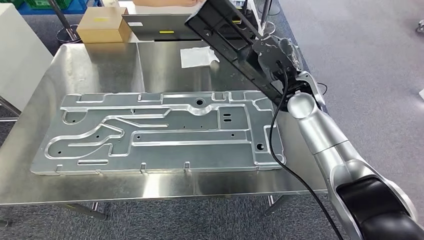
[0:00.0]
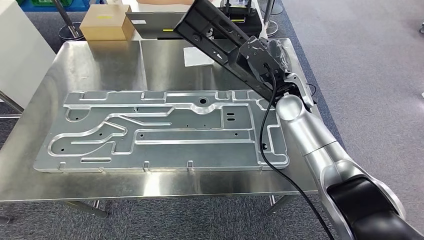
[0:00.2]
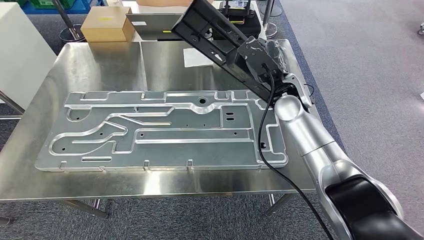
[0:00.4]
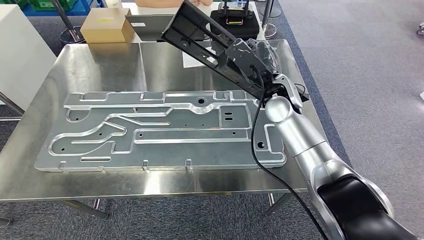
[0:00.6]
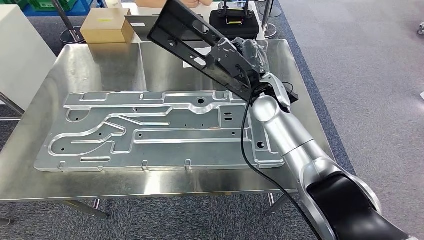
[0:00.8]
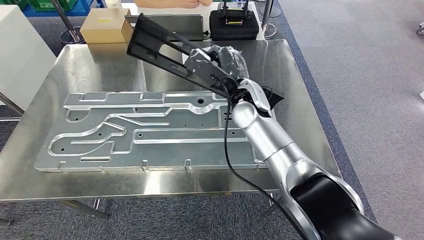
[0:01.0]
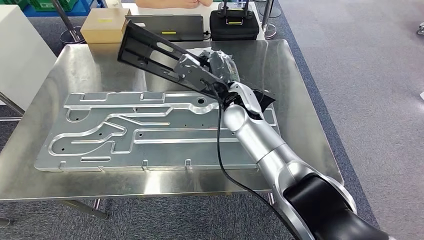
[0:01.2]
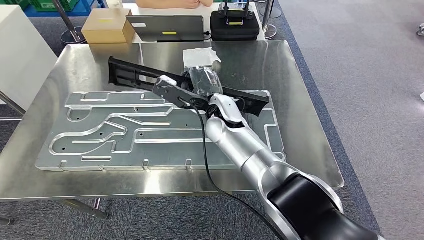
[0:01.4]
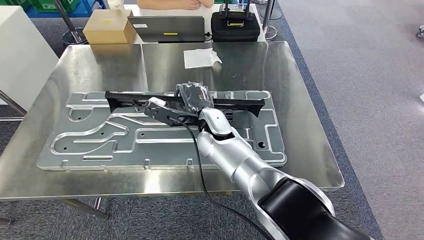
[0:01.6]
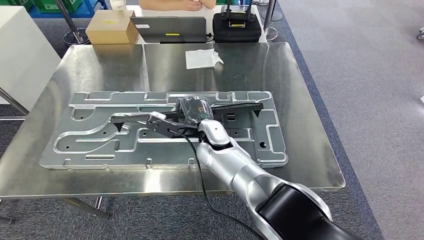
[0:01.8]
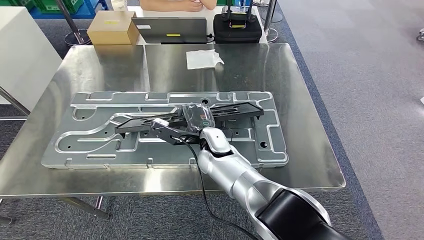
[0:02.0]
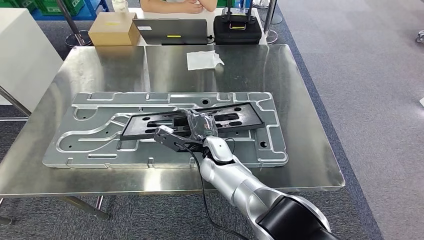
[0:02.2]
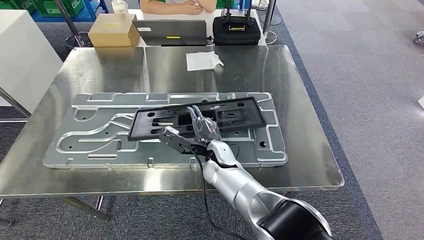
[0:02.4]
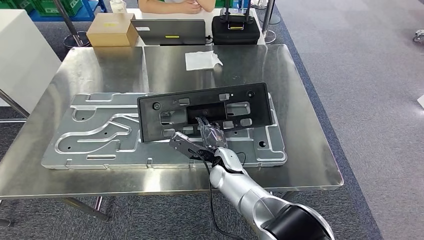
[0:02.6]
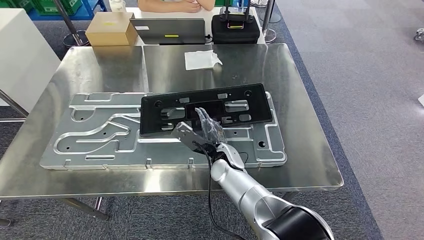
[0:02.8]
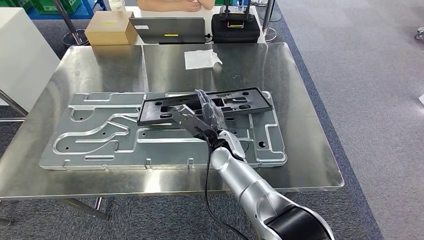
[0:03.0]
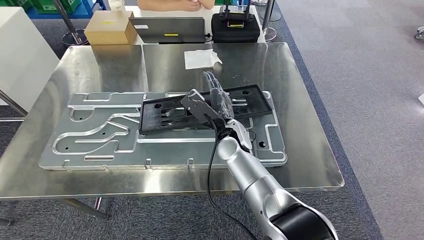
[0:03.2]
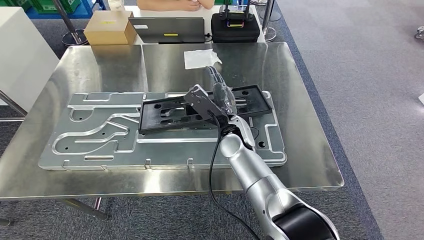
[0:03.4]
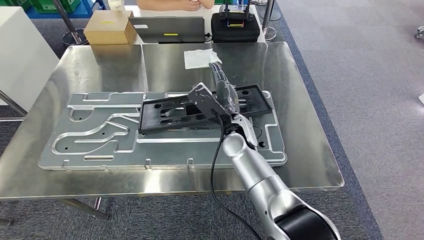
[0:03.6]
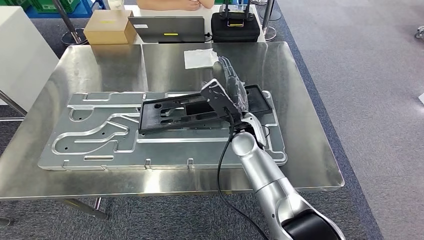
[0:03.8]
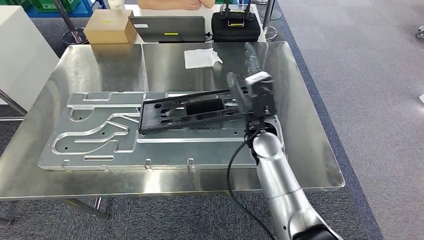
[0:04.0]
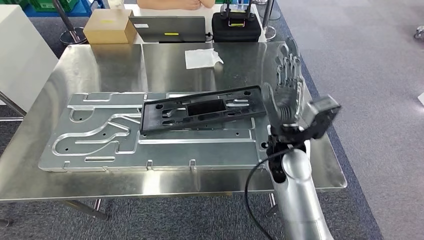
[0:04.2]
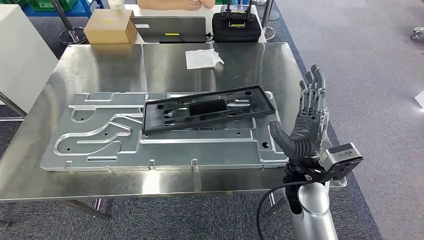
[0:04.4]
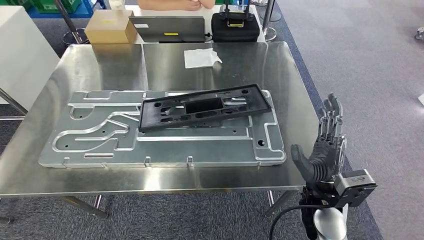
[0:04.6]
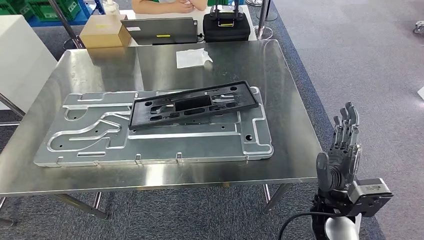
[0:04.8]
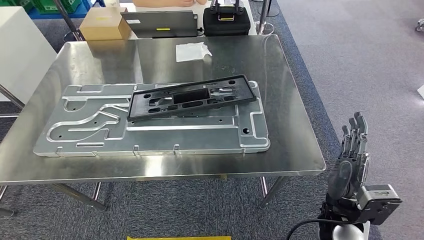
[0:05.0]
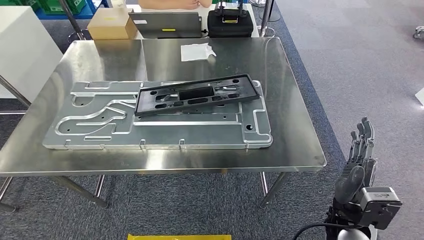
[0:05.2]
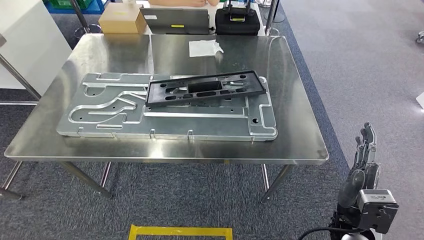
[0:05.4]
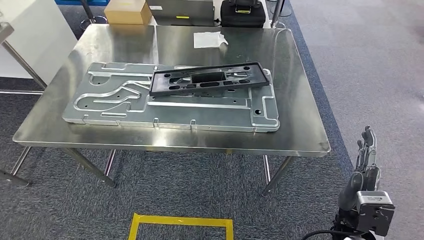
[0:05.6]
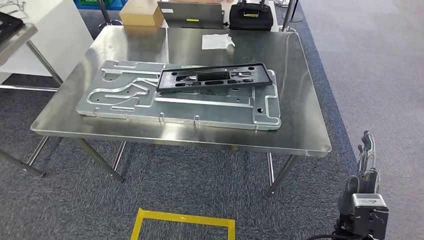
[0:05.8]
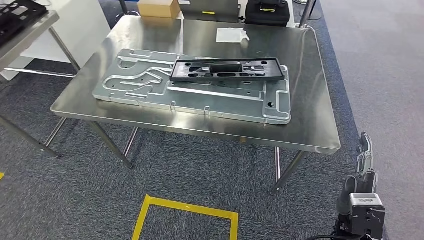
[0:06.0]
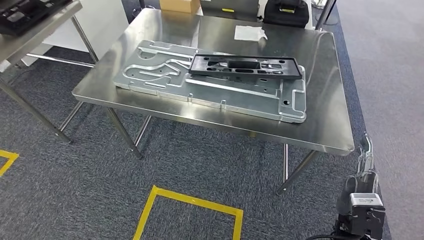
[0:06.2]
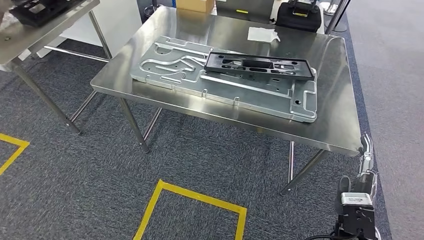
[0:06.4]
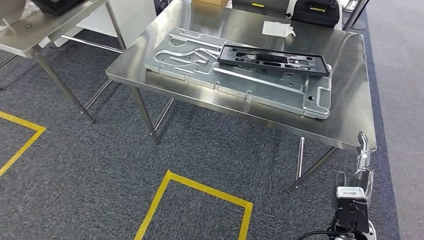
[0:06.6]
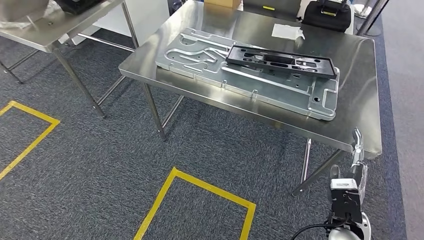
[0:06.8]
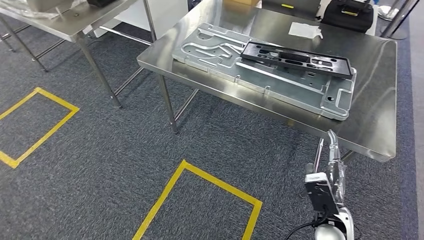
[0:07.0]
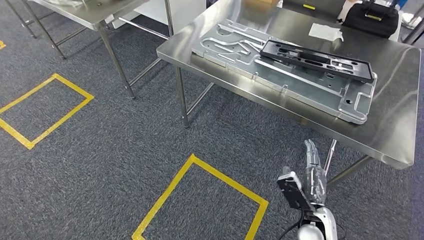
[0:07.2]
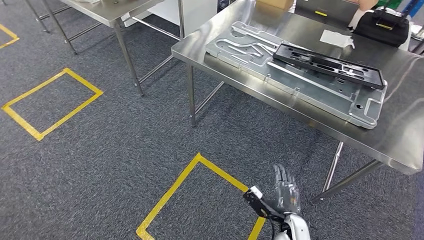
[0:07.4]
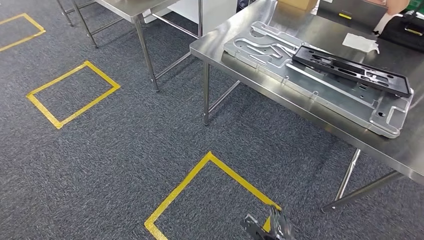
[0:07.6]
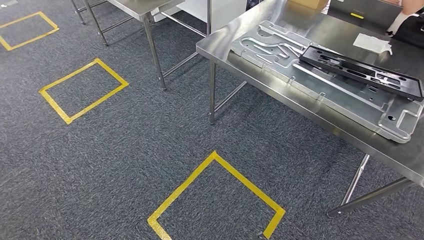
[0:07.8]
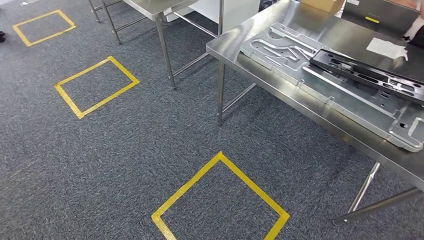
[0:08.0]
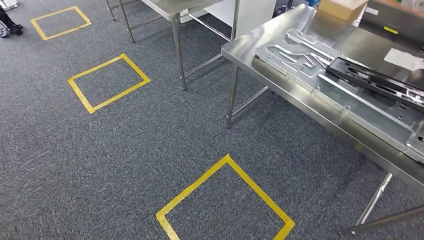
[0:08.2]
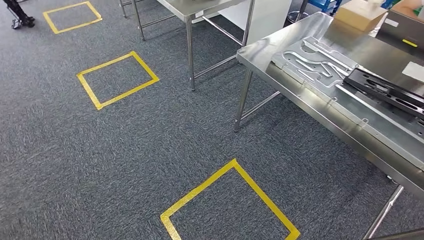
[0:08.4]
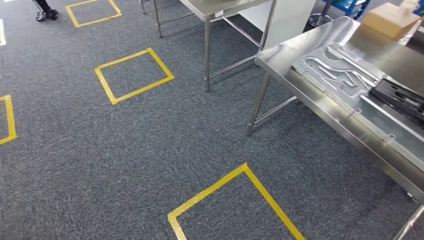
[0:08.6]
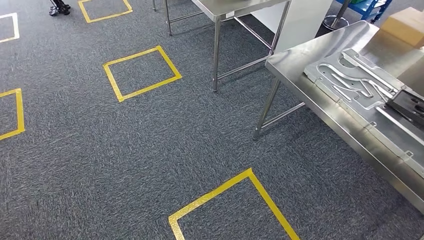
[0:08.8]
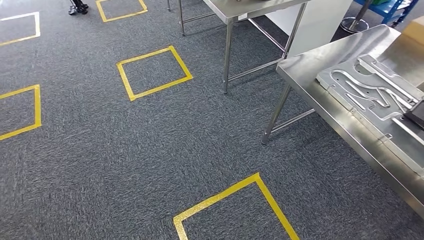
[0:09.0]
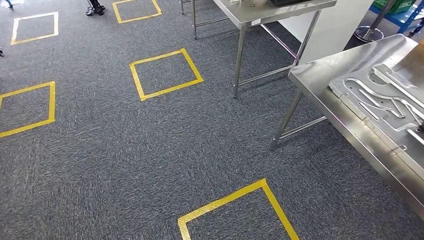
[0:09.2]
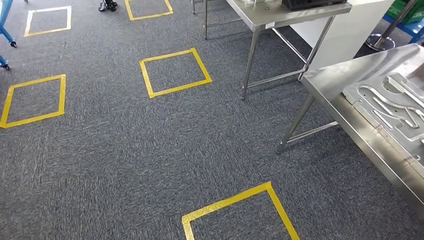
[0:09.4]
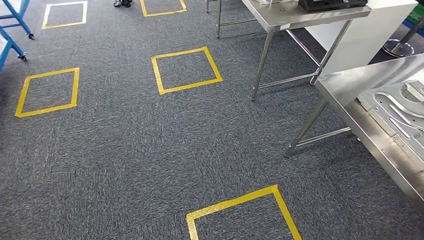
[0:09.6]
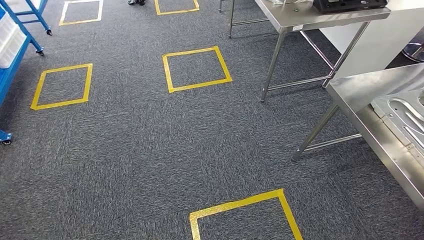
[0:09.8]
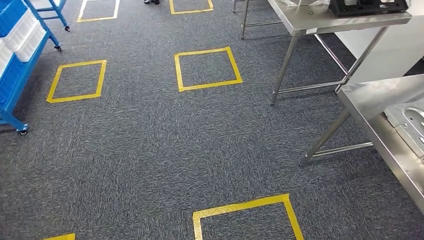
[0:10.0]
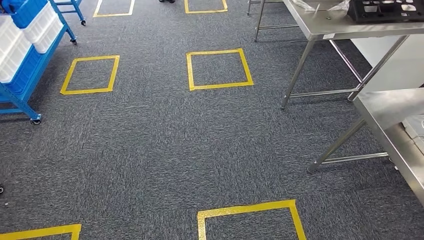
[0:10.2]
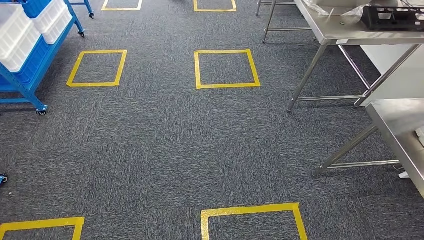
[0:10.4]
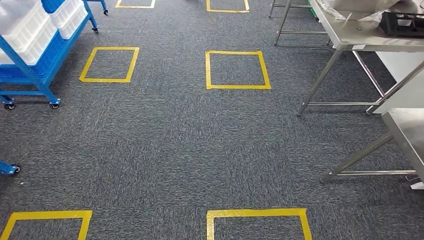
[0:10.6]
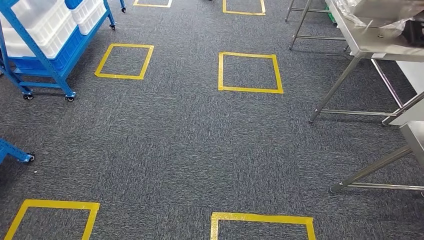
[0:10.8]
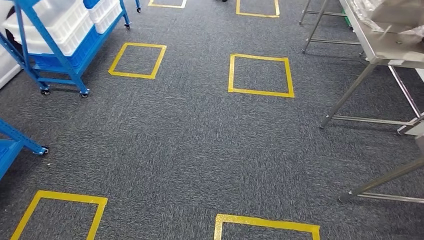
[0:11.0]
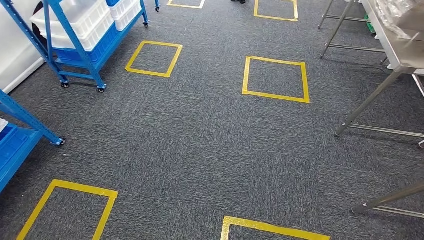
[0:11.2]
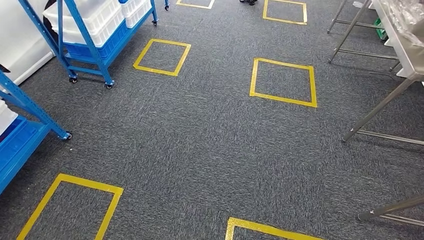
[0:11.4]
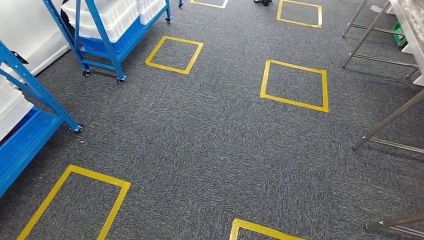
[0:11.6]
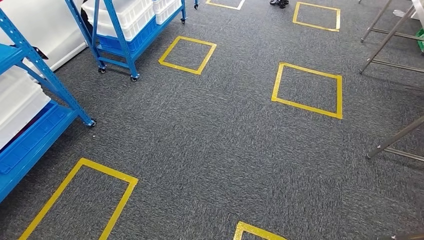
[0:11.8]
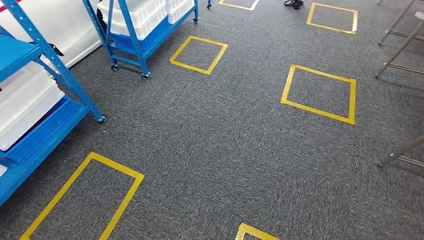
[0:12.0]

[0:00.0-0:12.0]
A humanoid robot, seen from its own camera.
Step, 0:00.4 to 0:05.2: Insert the large material into the corresponding slot on the workbench.
0:01.6 to 0:03.0: The right hand shifts about 5 cm downward.

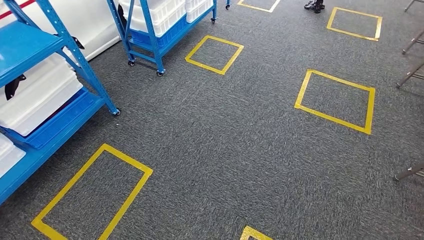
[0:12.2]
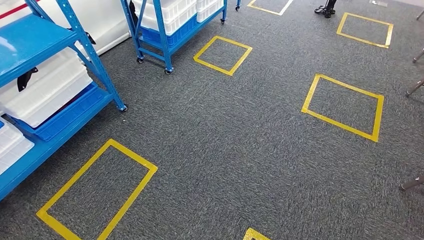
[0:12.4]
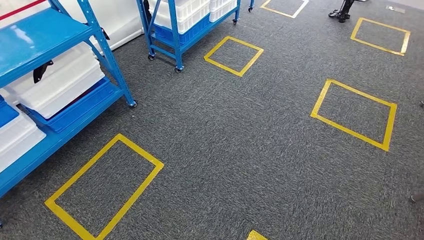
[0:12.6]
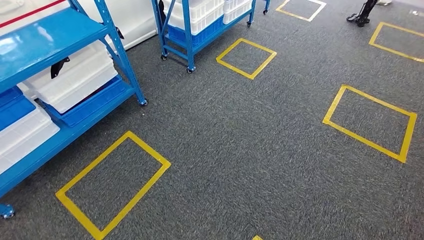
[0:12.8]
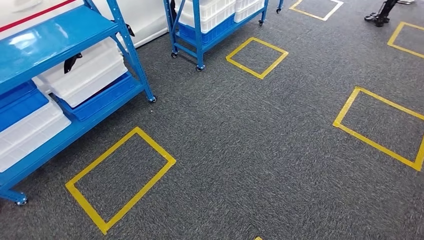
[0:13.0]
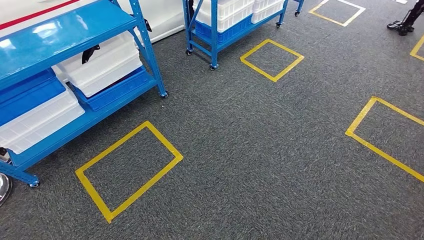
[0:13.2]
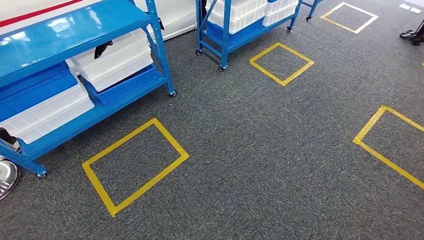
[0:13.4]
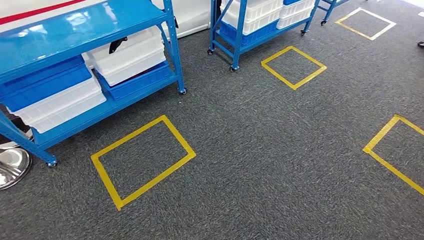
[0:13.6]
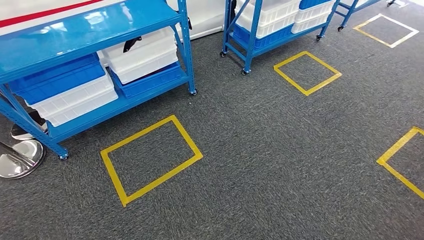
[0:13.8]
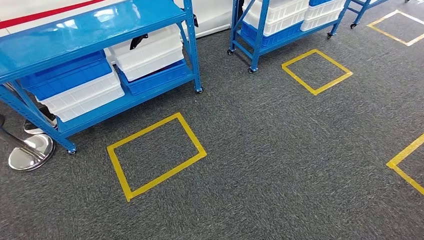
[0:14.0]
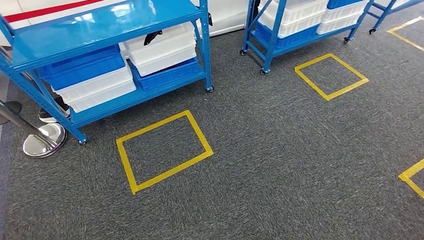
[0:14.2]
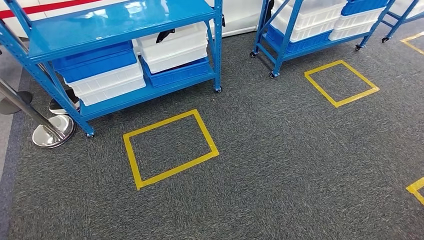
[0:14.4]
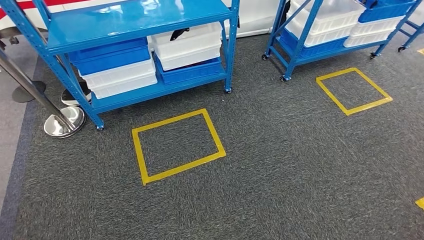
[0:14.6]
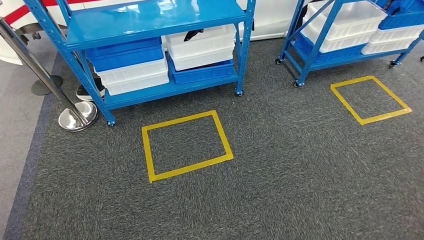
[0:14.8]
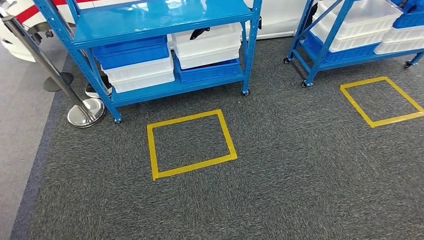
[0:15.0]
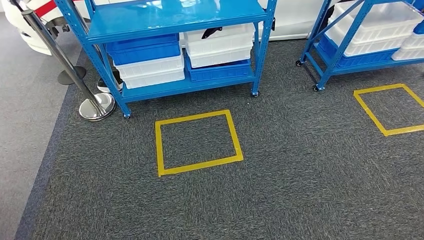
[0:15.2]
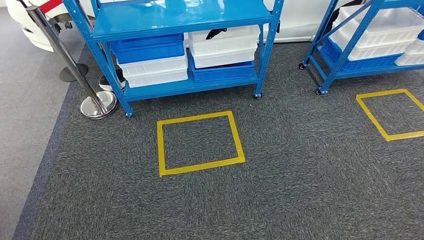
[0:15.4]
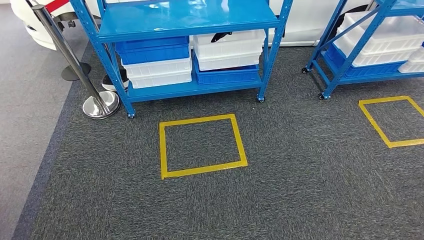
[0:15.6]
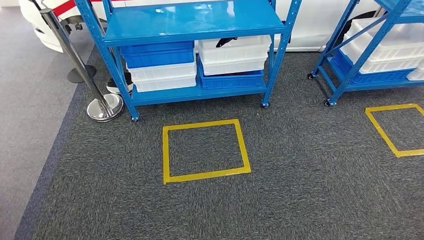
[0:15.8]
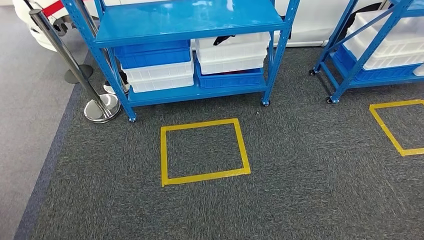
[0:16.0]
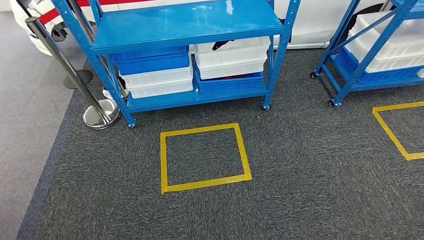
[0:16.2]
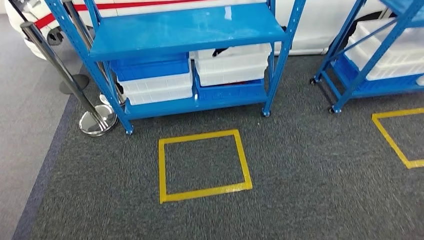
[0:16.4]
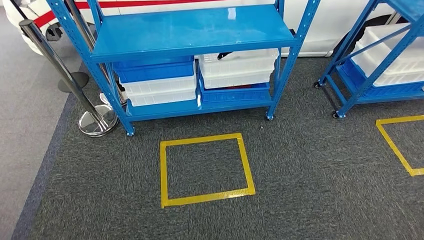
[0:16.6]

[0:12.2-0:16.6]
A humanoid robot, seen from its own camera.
Step, 0:12.2 to 0:16.6: Move to the initial position of the shelf.
